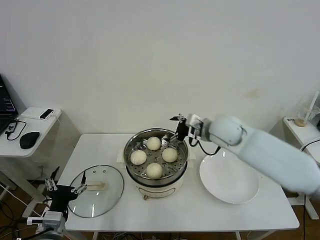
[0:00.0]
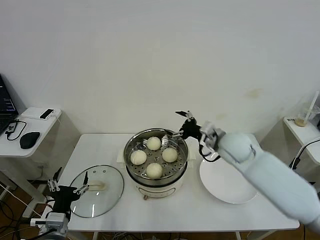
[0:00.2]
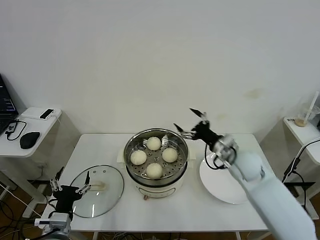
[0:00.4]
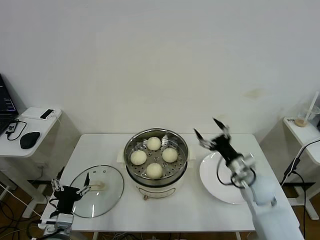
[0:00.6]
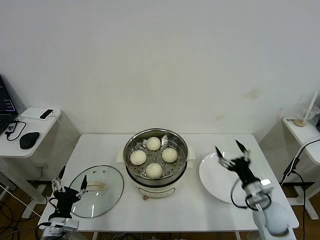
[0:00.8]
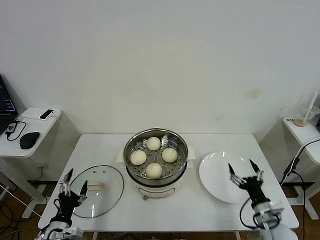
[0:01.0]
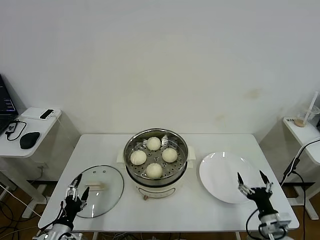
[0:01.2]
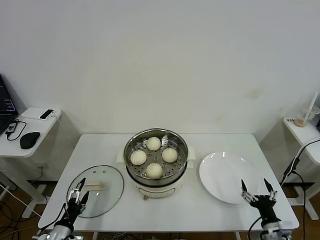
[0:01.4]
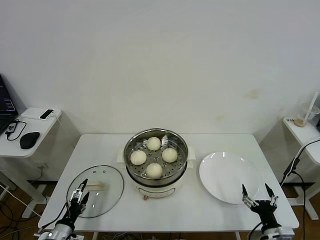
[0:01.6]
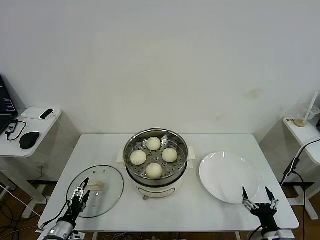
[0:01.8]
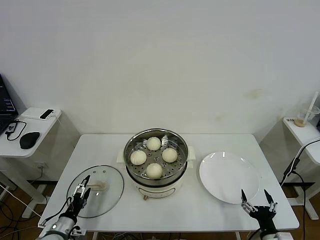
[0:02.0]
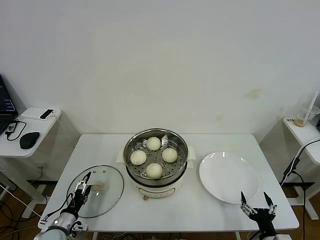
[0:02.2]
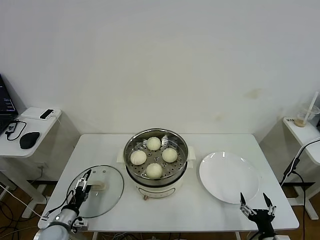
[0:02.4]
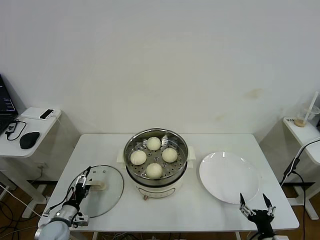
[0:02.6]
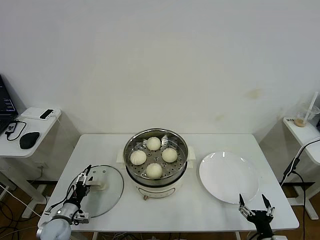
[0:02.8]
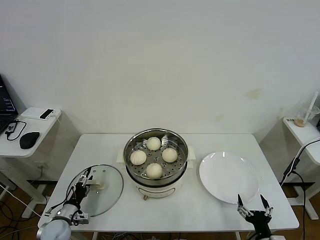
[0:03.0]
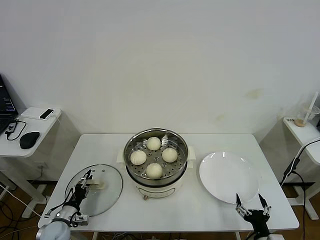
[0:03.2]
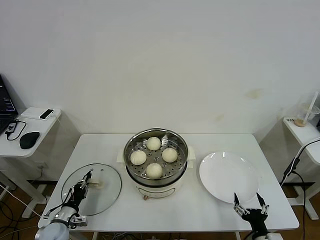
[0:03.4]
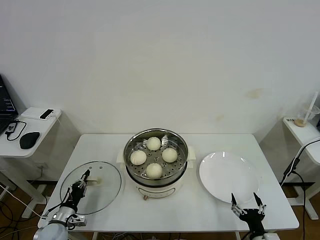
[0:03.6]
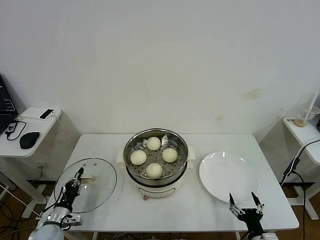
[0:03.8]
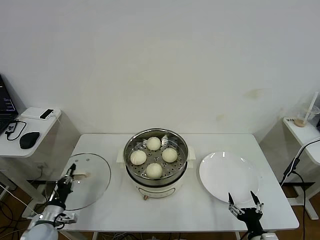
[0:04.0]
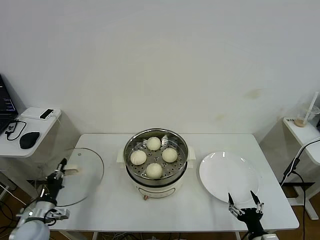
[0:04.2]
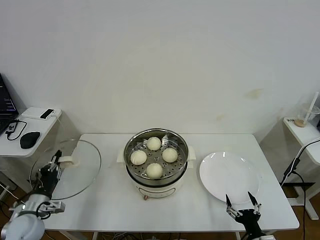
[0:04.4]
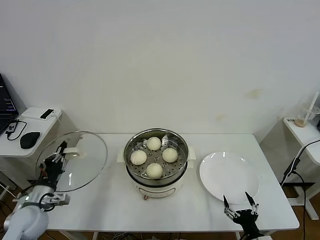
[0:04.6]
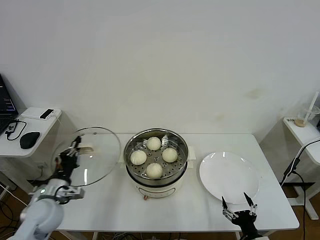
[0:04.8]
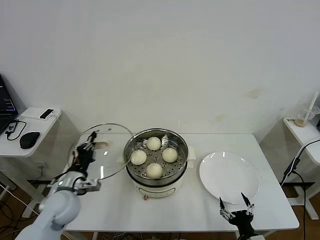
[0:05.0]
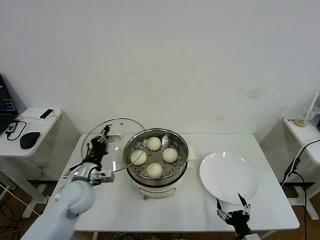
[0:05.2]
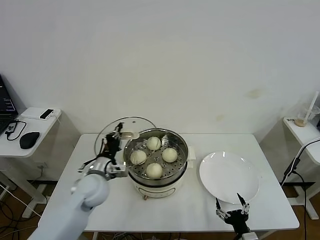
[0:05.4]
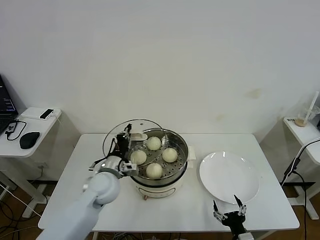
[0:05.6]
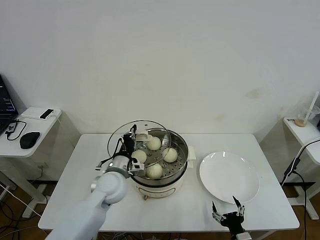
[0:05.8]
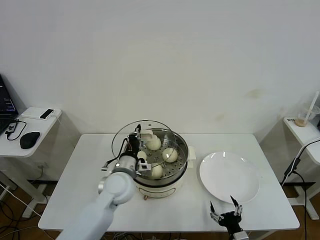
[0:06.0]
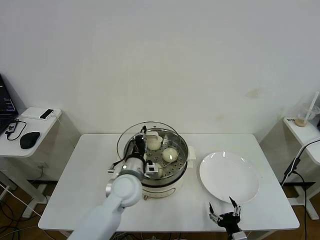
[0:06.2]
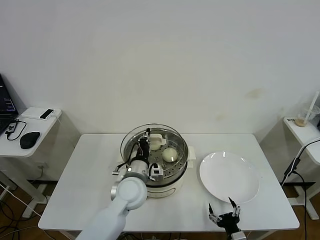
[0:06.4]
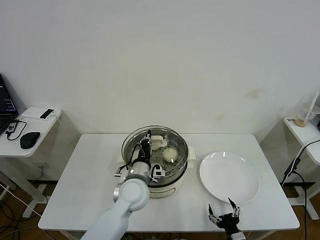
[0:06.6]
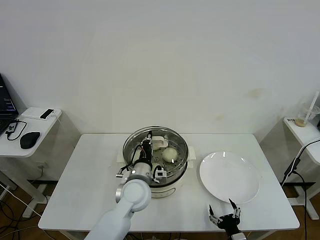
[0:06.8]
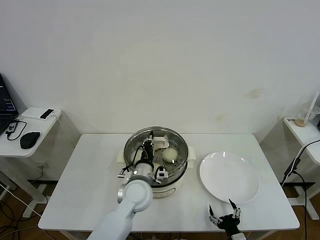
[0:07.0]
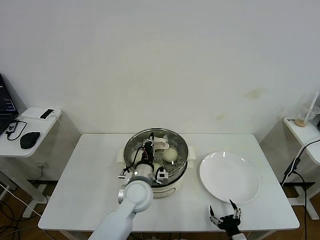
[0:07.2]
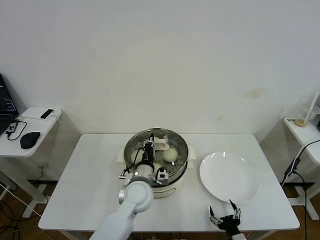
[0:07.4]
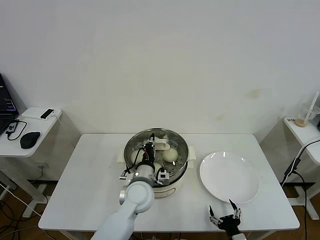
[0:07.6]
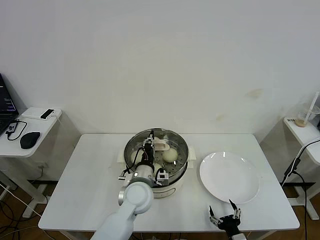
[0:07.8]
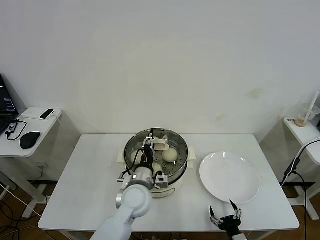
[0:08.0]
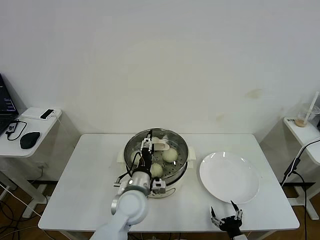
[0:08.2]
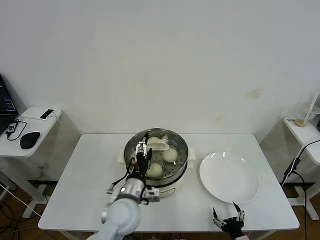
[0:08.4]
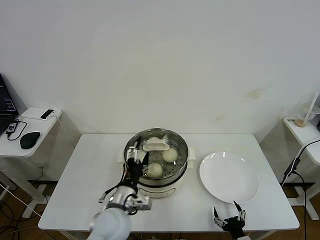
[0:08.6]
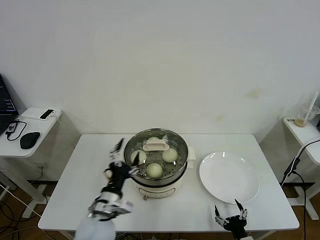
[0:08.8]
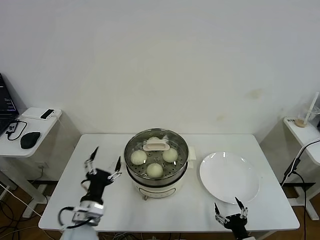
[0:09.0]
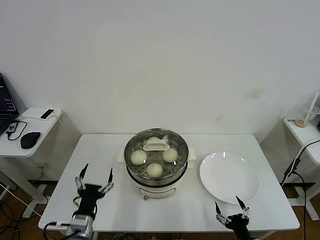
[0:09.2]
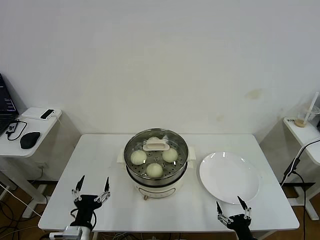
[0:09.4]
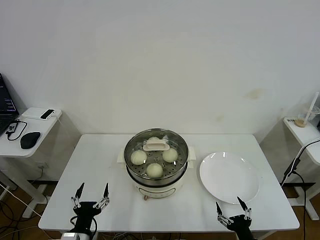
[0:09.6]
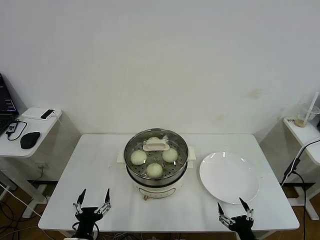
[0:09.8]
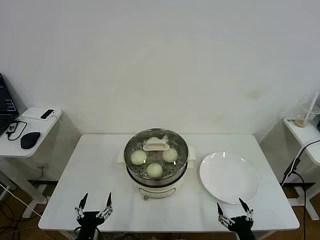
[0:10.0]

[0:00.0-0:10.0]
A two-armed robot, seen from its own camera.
Task of the whole recording: take steamed baozi put them in steamer then cover it.
Step, 0:00.0 to 0:03.6: Grasp the pot lid with left gripper.
Step, 0:03.8 to 0:08.6: Place the pot lid on the steamer with left gripper.
0:00.0 to 0:01.4: The left gripper is displaced downward and to the left by approximately 15 cm; the right gripper shifts some 40 cm backward, downward and to the right.
0:01.4 to 0:02.8: The left gripper heads forward, covering approximately 10 cm, while the right gripper shifts by roughly 5 cm.
0:02.8 to 0:04.2: The left gripper moves upward, roughly 5 cm, and closes up.
0:04.2 to 0:05.8: The left gripper goes approximately 30 cm to the right, upward and forward. Meanwhile the right gripper moves approximately 5 cm.
0:05.8 to 0:07.2: The left gripper travels to the right by roughly 10 cm.
0:07.2 to 0:08.6: The left gripper heads backward and to the left, covering about 10 cm, and opens up.
0:08.6 to 0:10.0: The right gripper shifts about 5 cm upward. Meanwhile the left gripper heads backward, to the left and downward, covering about 20 cm.
